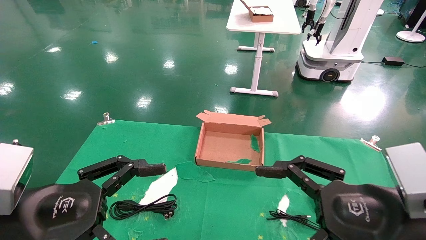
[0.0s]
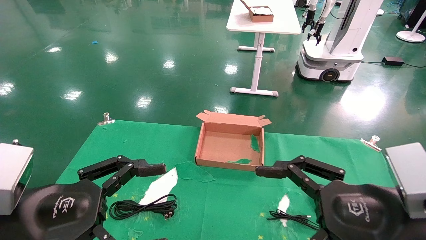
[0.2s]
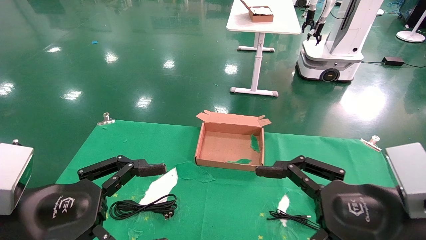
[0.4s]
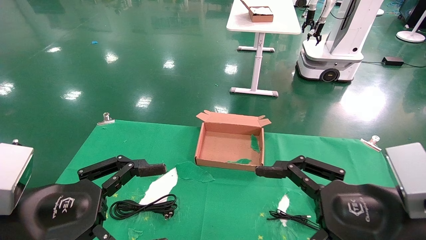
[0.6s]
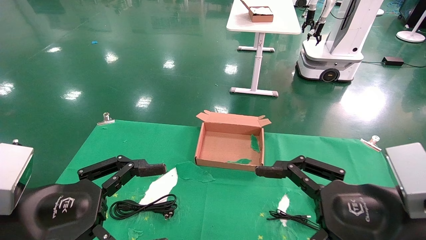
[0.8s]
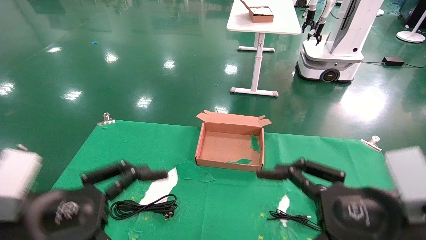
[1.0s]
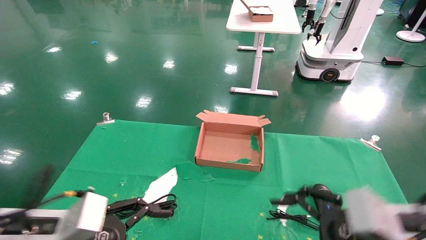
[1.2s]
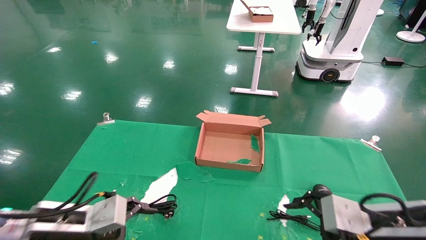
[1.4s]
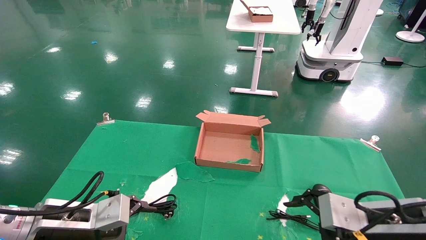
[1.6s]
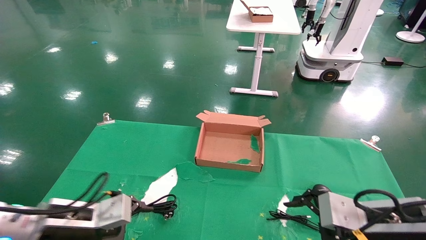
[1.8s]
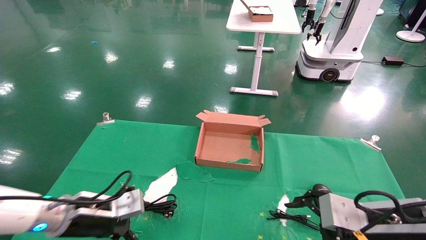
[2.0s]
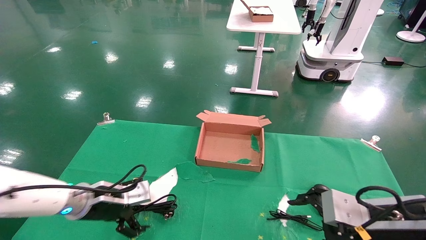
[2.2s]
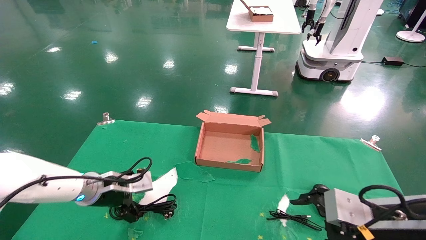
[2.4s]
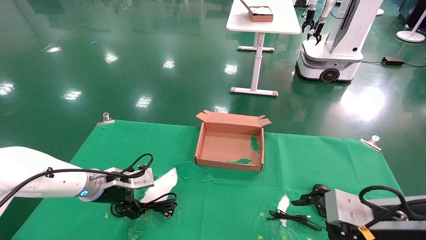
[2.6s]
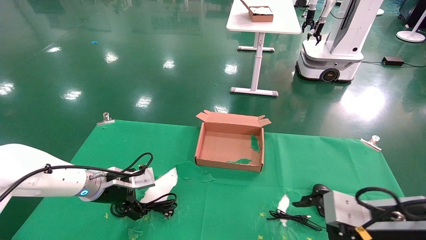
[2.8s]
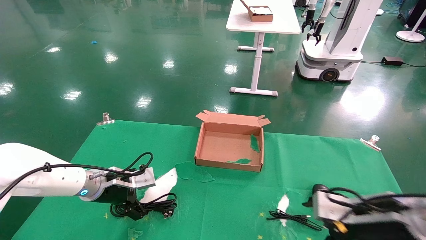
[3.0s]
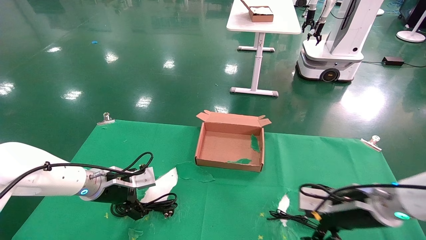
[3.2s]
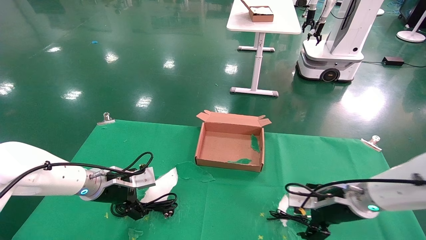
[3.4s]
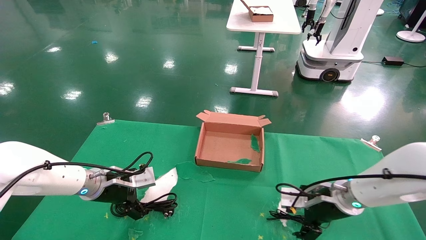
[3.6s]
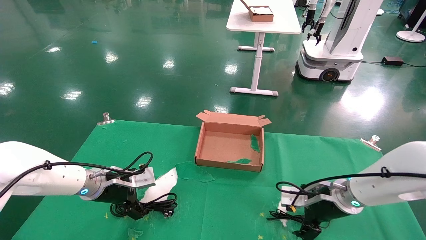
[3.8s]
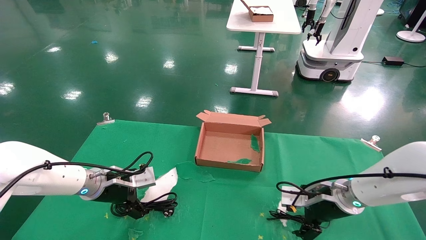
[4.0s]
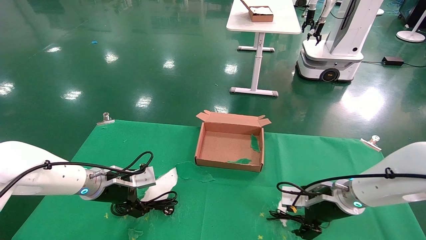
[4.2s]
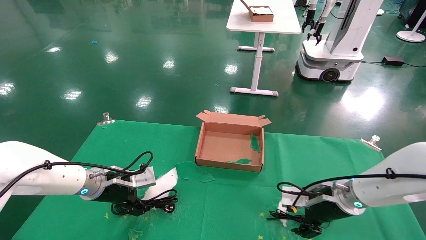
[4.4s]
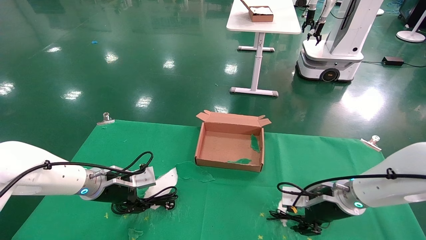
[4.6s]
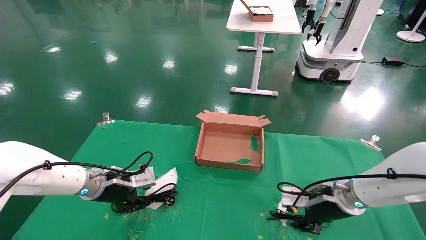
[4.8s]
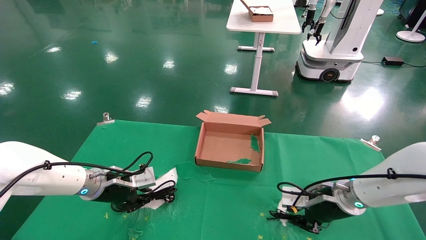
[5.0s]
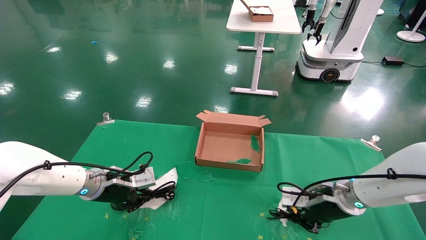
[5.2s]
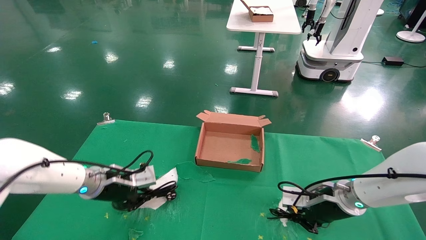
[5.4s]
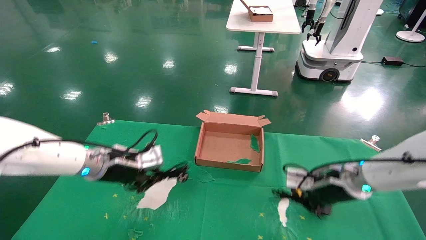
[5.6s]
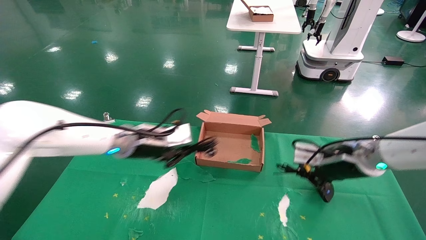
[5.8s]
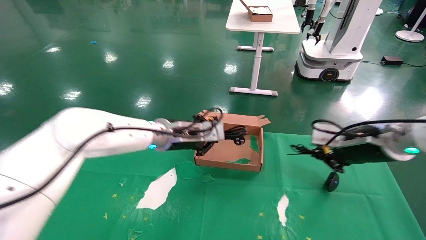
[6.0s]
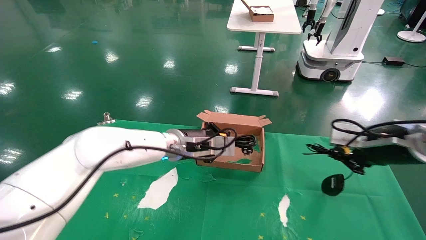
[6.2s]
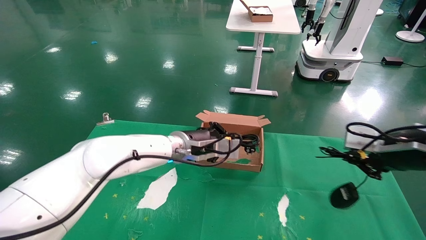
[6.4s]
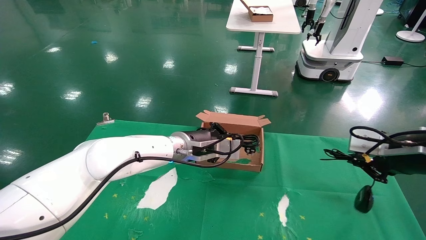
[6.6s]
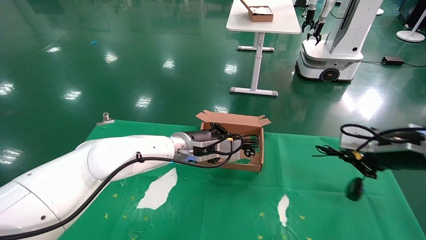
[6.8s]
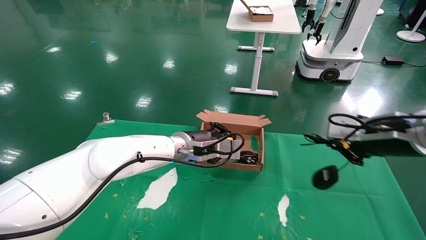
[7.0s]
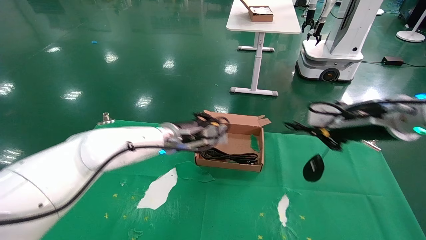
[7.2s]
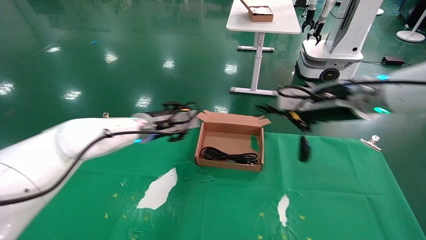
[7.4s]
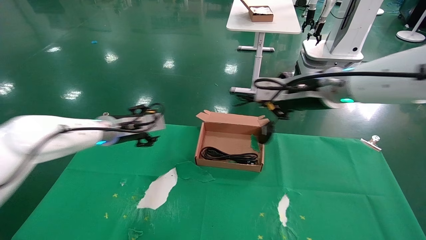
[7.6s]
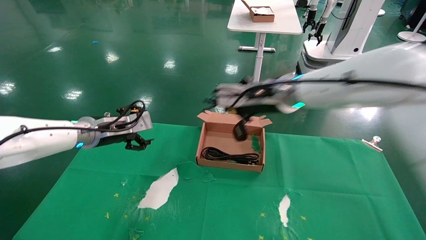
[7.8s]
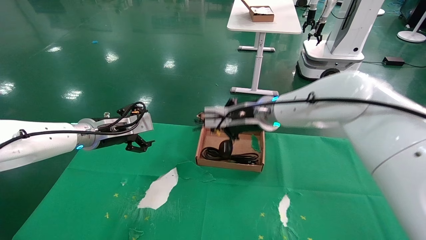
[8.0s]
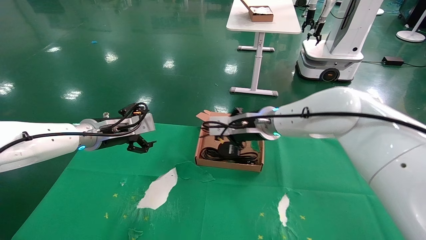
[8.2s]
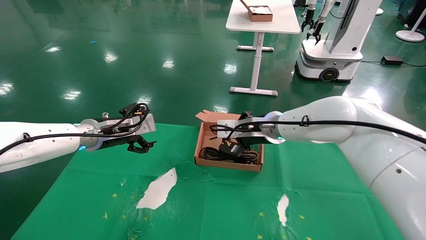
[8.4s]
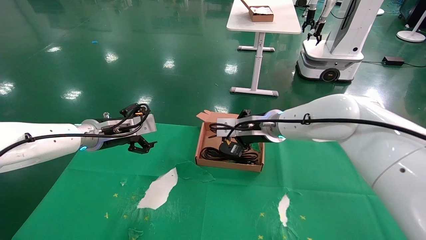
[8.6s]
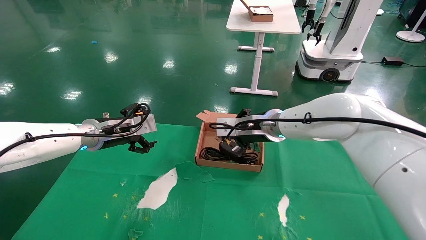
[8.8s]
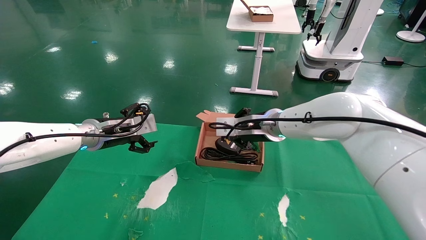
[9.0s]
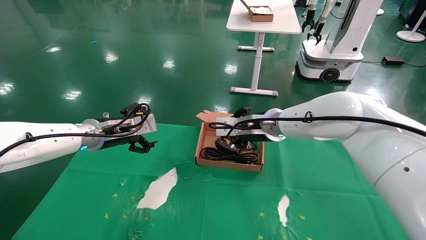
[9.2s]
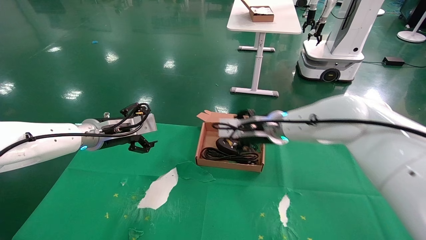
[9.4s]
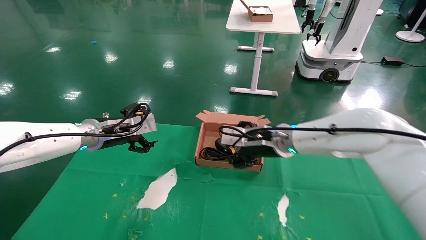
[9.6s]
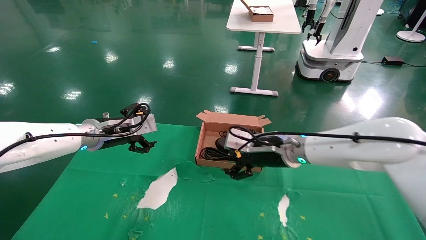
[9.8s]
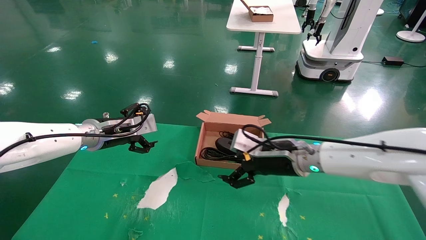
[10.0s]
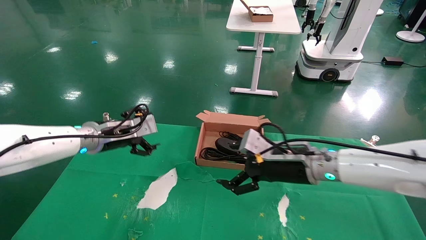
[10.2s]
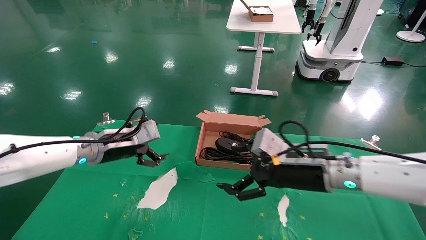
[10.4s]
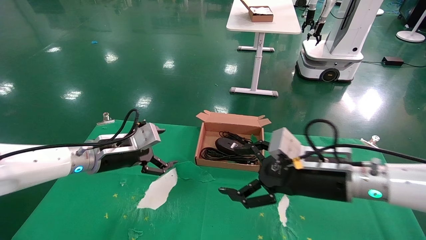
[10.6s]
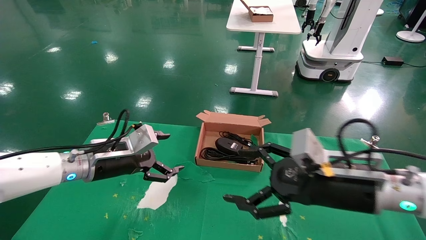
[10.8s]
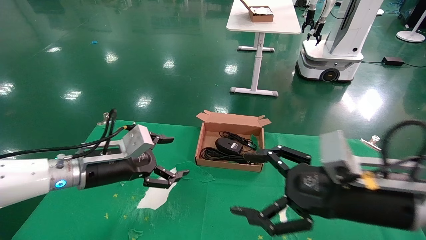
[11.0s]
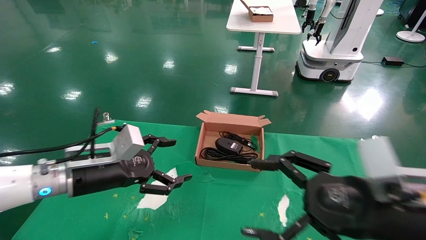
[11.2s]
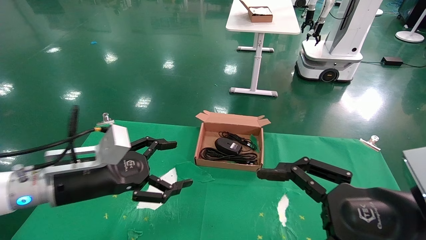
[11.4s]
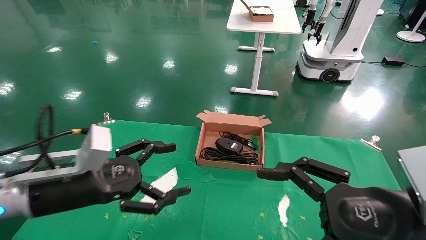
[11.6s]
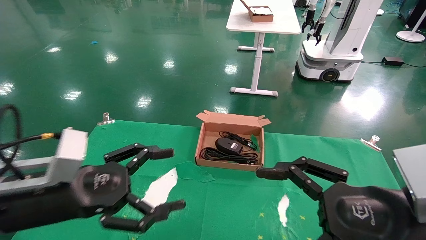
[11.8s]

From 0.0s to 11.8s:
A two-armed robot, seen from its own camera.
Step, from 1.4s to 6.2s: Grab and lift both the mouse and power cord from the accessory packaging area at the same time.
Step, from 6.4s to 9.4s: Place the mouse and power cord into the box.
From 0.0s to 1.4s: The left gripper moves forward and downward, roughly 10 cm. The right gripper shifts about 5 cm downward and forward.
From 1.4s to 3.0s: The left gripper moves forward, about 15 cm. Meanwhile the right gripper is displaced forward by about 5 cm.
From 3.0s to 4.4s: The right gripper heads forward, covering about 10 cm.
From 4.4s to 6.0s: The right gripper moves upward, about 15 cm, and closes up; the left gripper heads to the right and upward, covering roughly 20 cm, and closes.
From 6.0s to 7.4s: The left gripper is displaced to the left by about 5 cm, and opens. The right gripper is displaced upward and to the left by about 10 cm.
From 7.4s to 8.8s: The right gripper goes about 15 cm to the left, forward and downward. Meanwhile the left gripper is displaced to the left by roughly 10 cm, and opens.
From 8.8s to 10.4s: The right gripper heads backward, to the right and downward, covering about 15 cm, and opens.
From 10.4s to 11.8s: Both grippers travel together backward, roughly 20 cm.

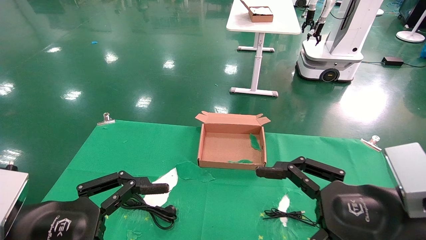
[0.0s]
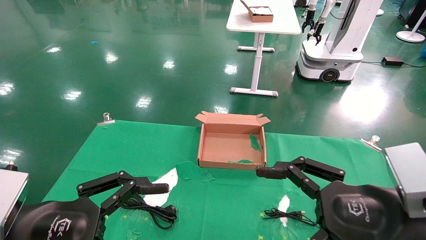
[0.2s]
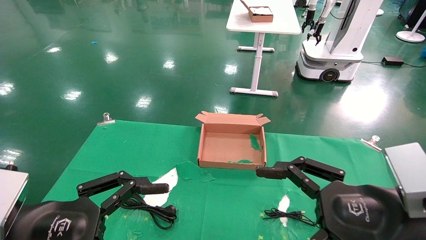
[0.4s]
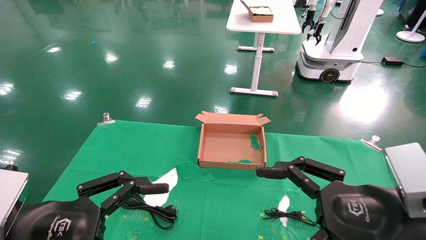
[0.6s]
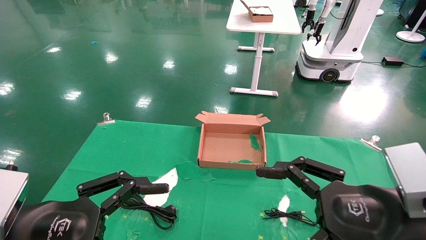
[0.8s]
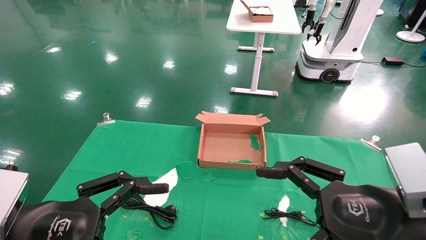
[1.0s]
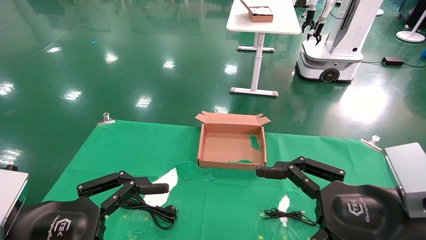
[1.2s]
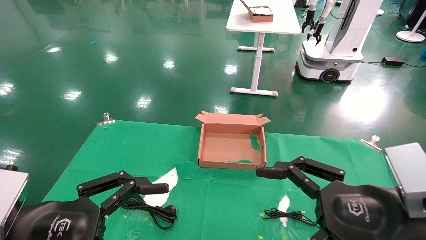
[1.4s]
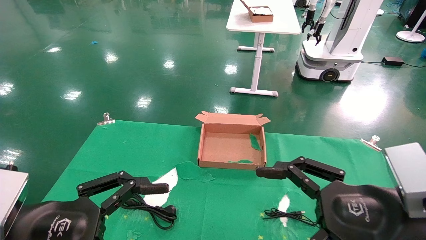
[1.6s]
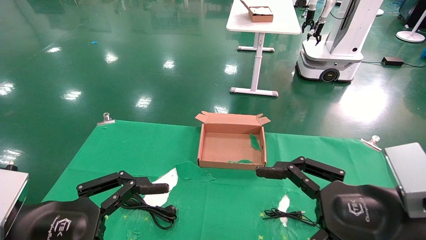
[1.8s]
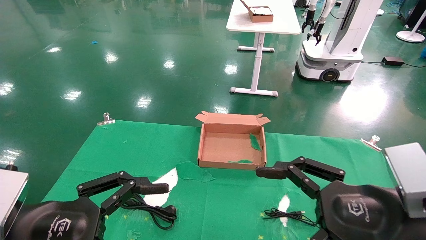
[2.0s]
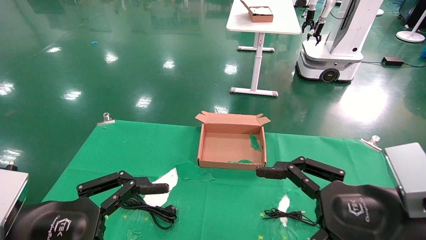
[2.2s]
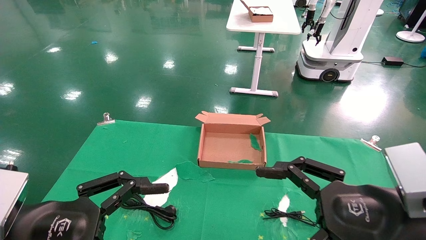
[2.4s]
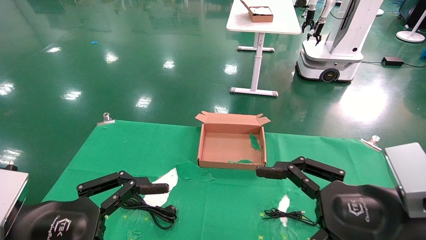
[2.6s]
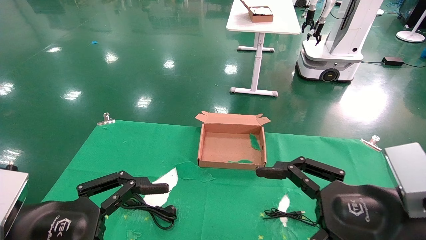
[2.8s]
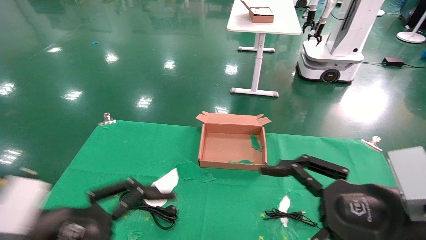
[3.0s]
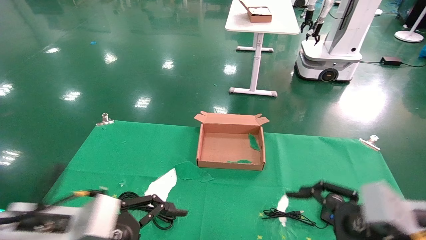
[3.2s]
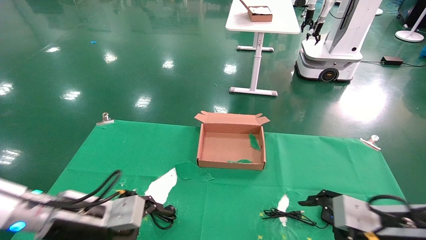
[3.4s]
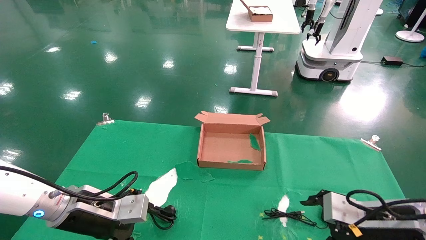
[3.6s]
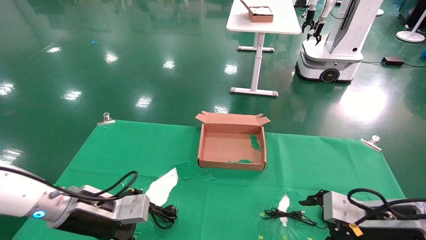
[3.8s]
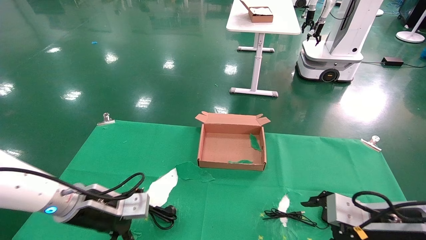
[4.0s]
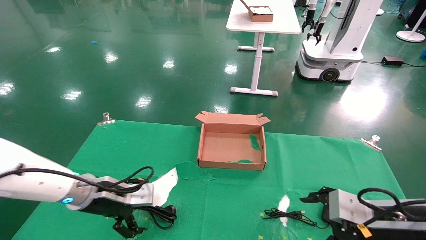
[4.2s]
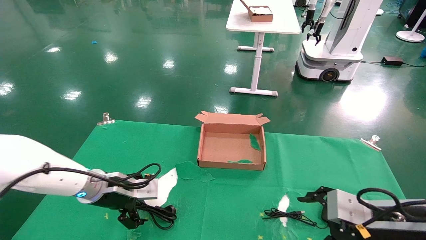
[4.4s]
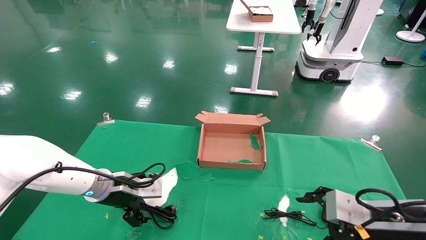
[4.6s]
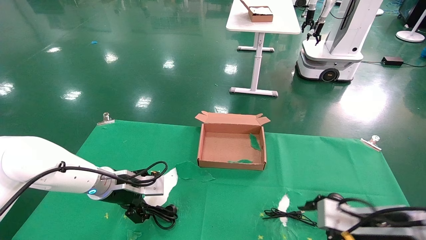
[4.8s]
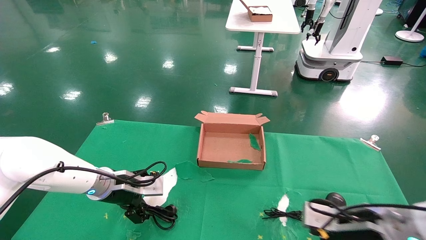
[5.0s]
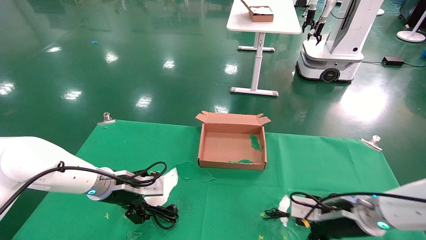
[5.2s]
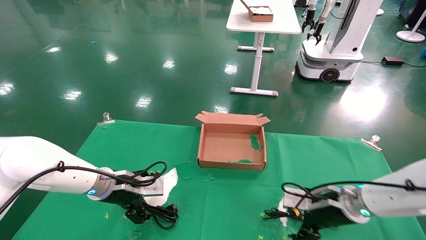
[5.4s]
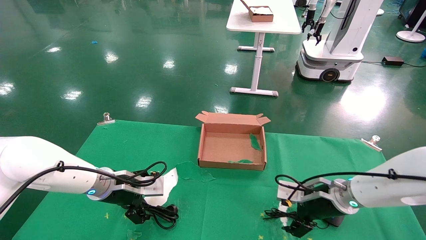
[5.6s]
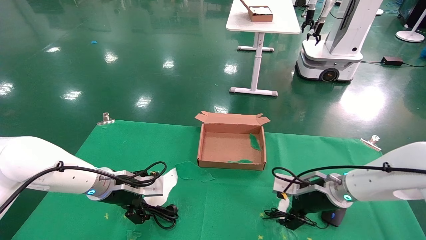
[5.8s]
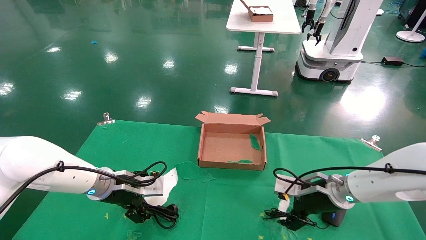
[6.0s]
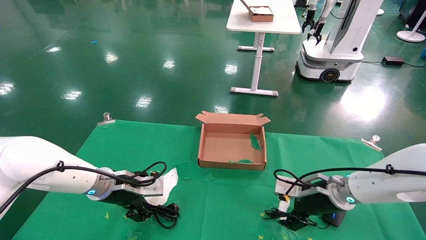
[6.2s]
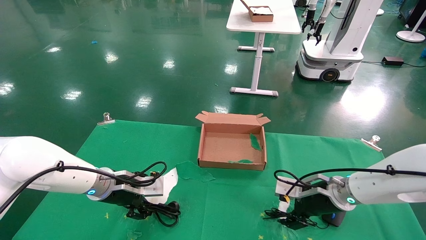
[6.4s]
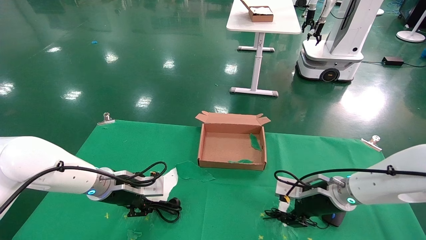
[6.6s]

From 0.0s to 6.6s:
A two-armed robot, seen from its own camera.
From 0.0s to 1.6s: Both grippers stay put.
From 1.6s to 3.2s: The right gripper changes place by some 10 cm; the left gripper shifts some 5 cm forward.
From 3.2s to 5.0s: The right gripper is displaced forward and downward by some 10 cm. Meanwhile the left gripper goes some 15 cm forward.
From 5.0s to 6.6s: The left gripper closes its fingers; the right gripper goes some 10 cm forward.
